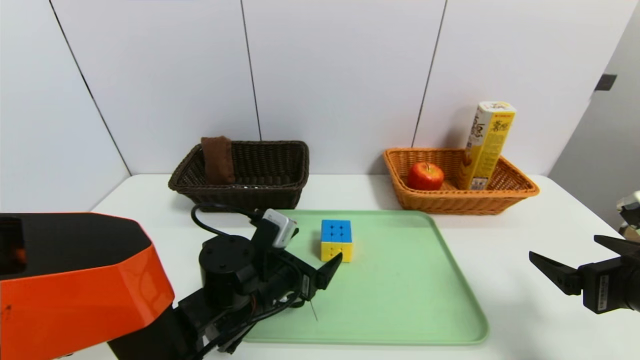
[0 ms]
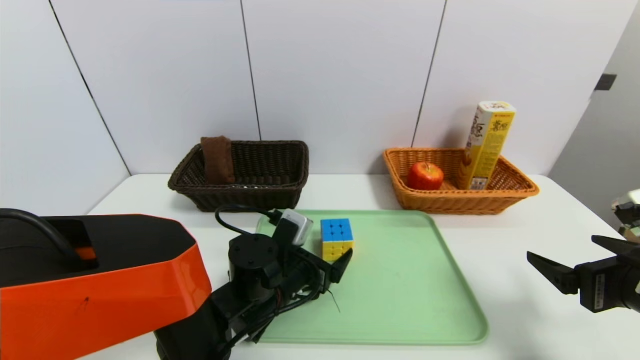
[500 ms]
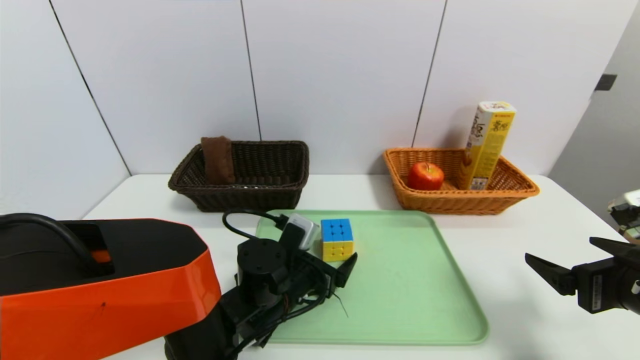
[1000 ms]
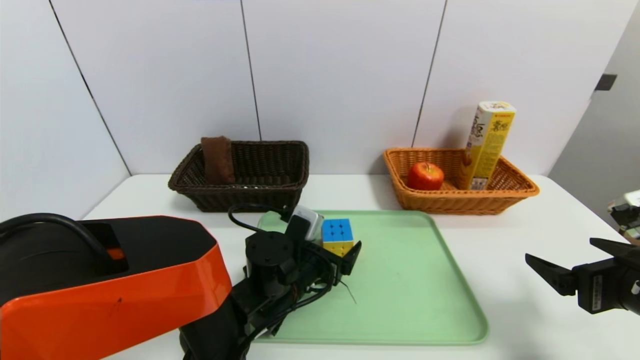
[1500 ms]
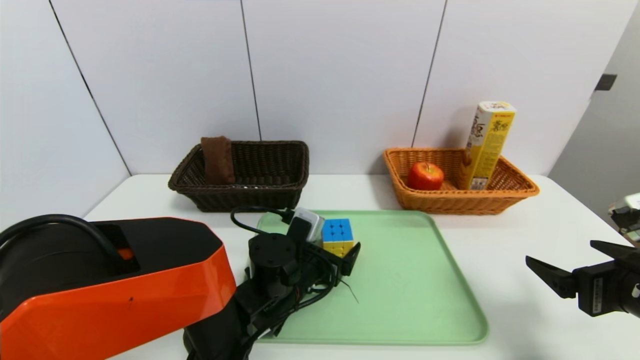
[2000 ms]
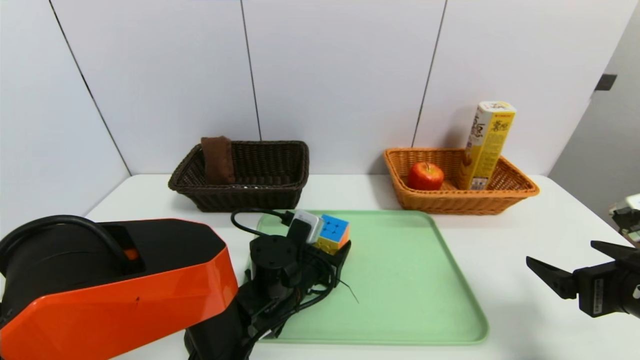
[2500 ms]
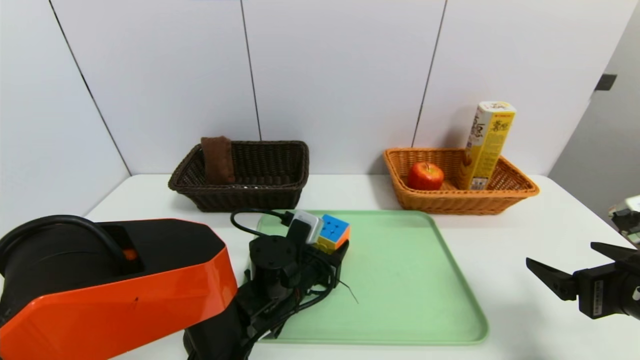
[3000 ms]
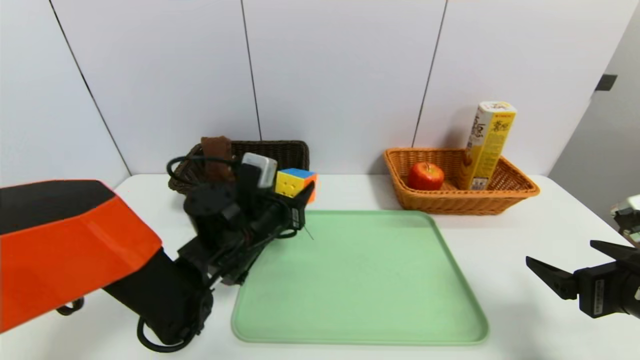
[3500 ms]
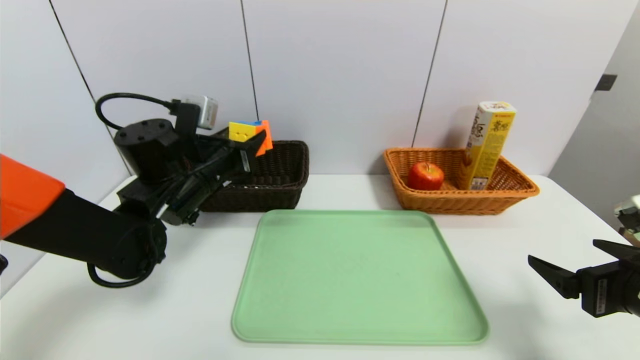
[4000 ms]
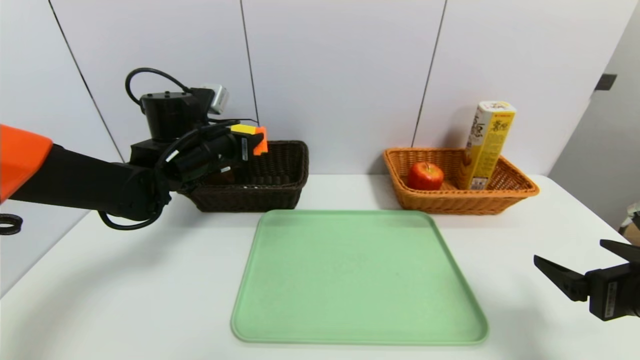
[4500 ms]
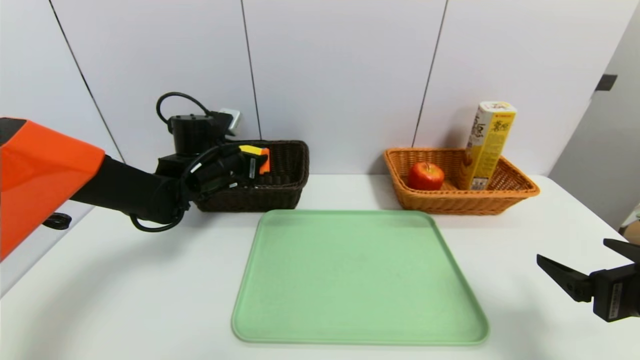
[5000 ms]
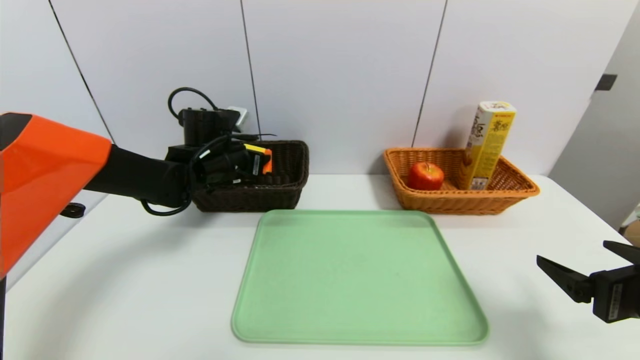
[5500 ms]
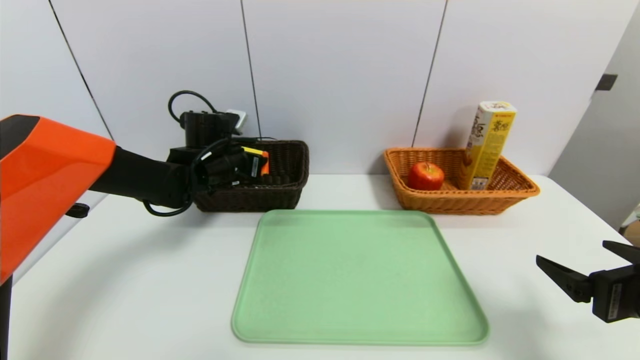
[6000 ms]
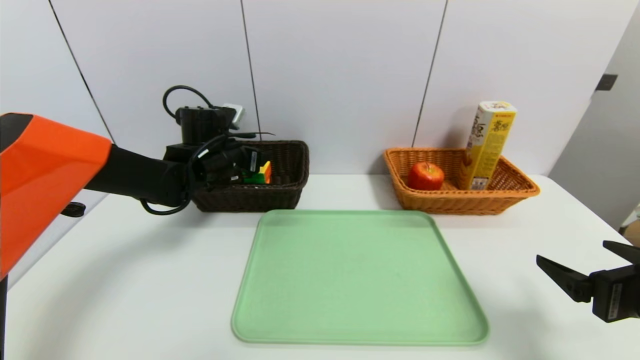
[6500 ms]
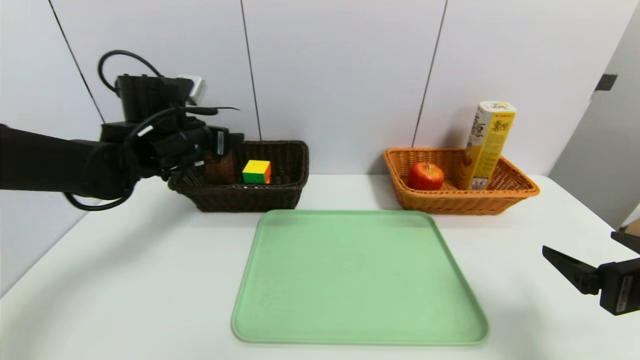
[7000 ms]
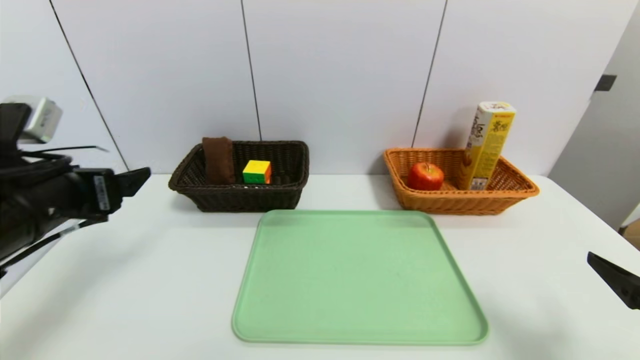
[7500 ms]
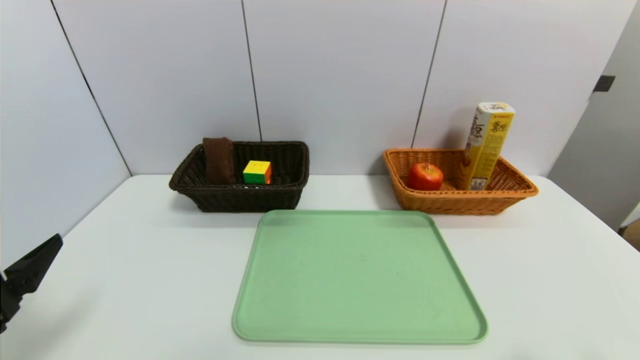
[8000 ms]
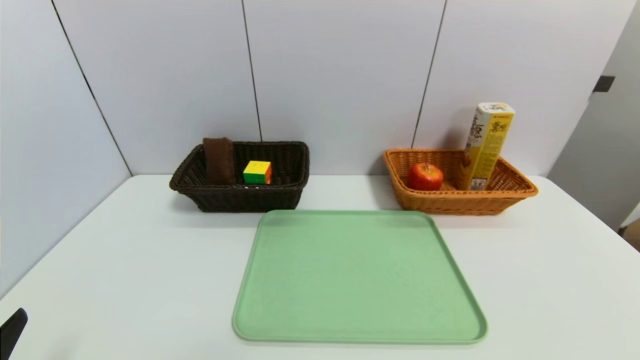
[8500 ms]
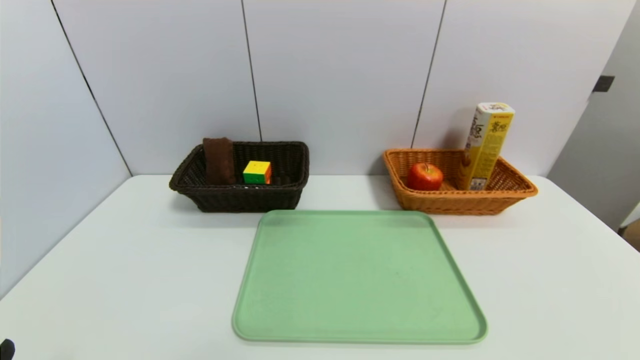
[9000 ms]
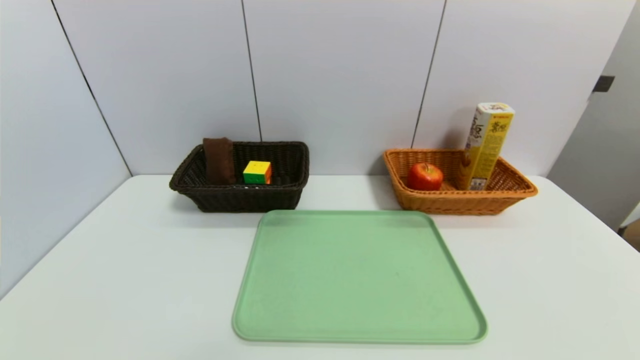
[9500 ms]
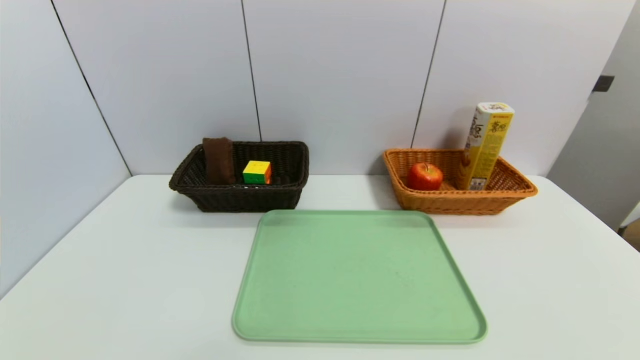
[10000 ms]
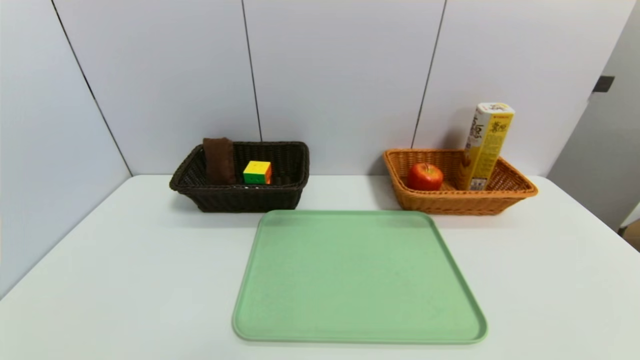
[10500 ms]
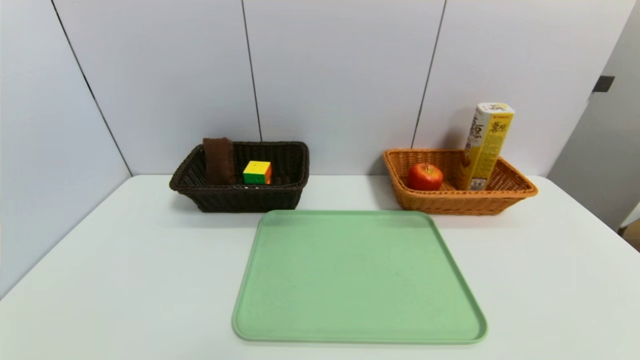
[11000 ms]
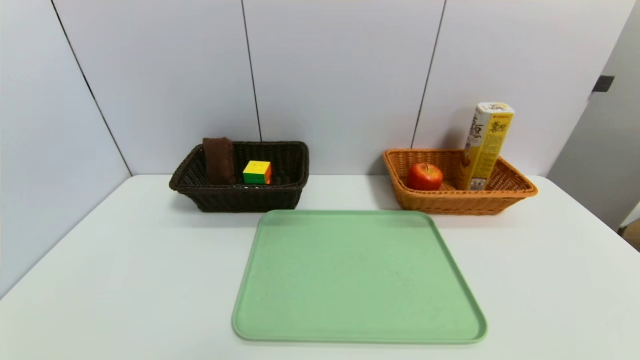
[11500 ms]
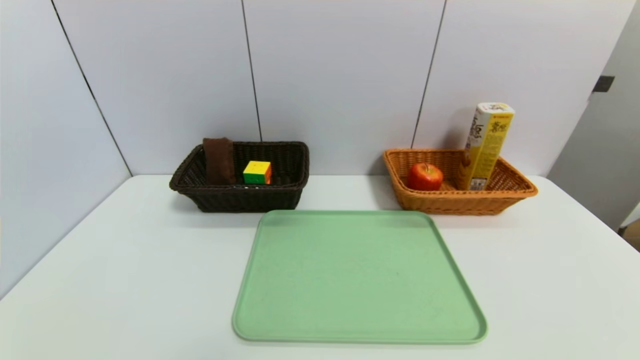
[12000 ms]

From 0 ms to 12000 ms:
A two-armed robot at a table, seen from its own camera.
Task of the whole recording: place the food in the right basket with the right gripper, and place the non food items in the left basket with the left gripper.
Step, from 0 ms to 7000 ms: Grasp the rubiks cube and put it in the left basket.
From 0 ms to 2000 ms: The left gripper moves roughly 5 cm.
From 2000 ms to 4000 ms: The left gripper travels upward, to the left and forward by roughly 20 cm, and closes its fingers.
From 4000 ms to 6000 ms: The left gripper moves forward, roughly 10 cm.
From 6000 ms to 8000 ms: The left gripper heads backward, covering some 35 cm, and opens. The right gripper is displaced backward by approximately 10 cm.
From 8000 ms to 10000 ms: The left gripper goes about 15 cm backward and downward.

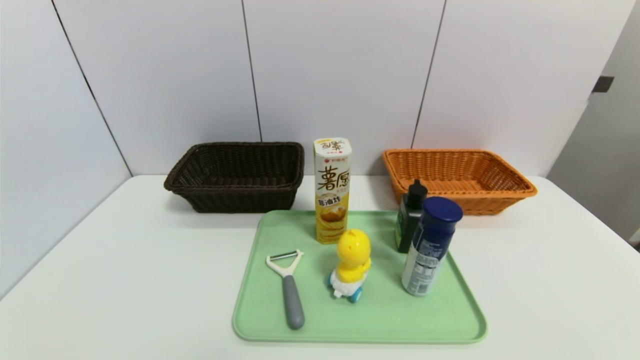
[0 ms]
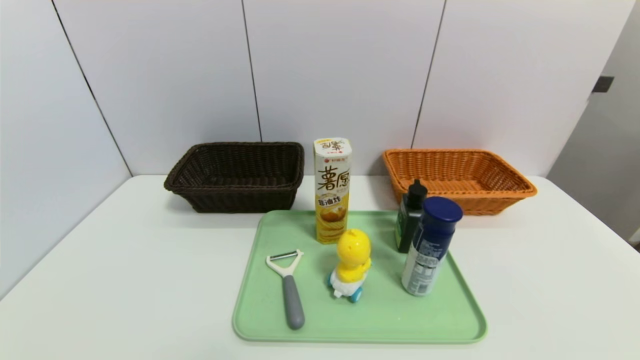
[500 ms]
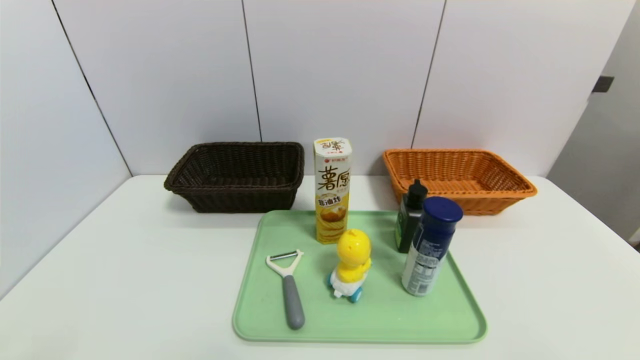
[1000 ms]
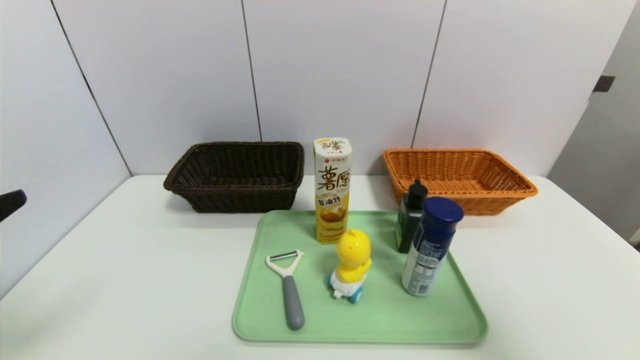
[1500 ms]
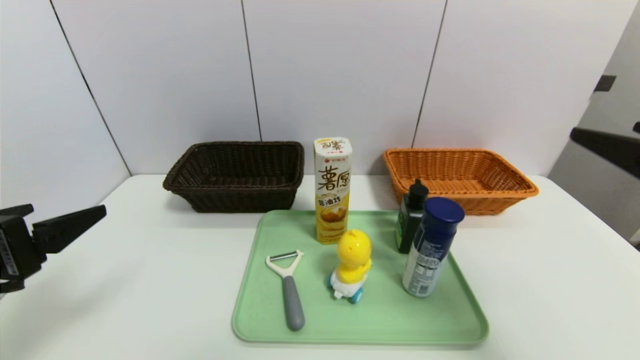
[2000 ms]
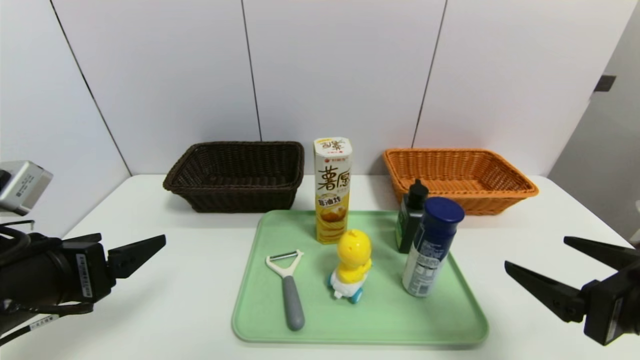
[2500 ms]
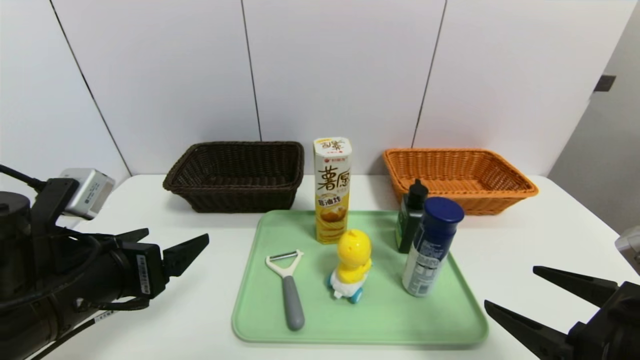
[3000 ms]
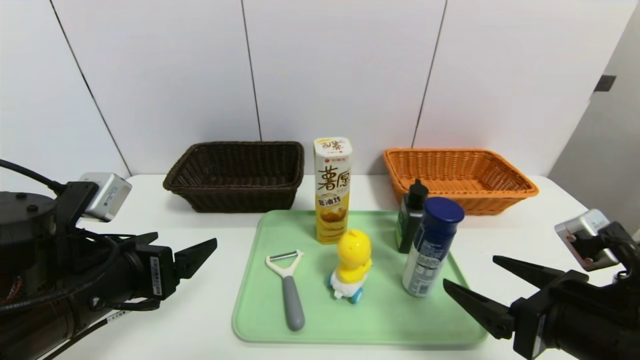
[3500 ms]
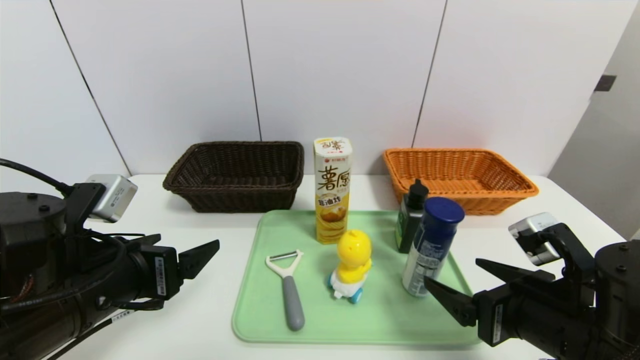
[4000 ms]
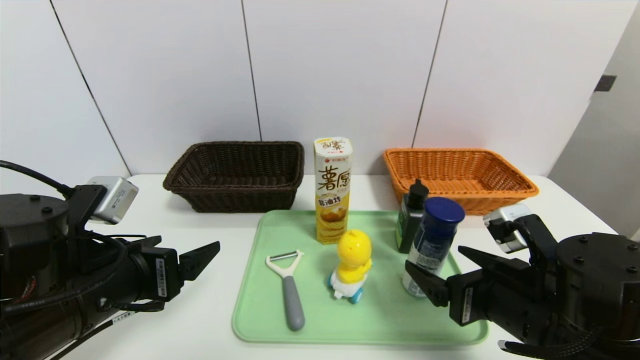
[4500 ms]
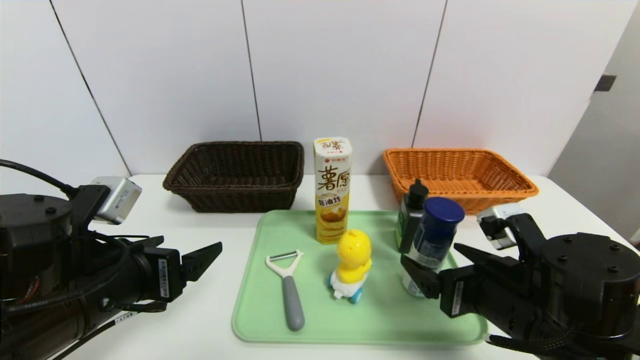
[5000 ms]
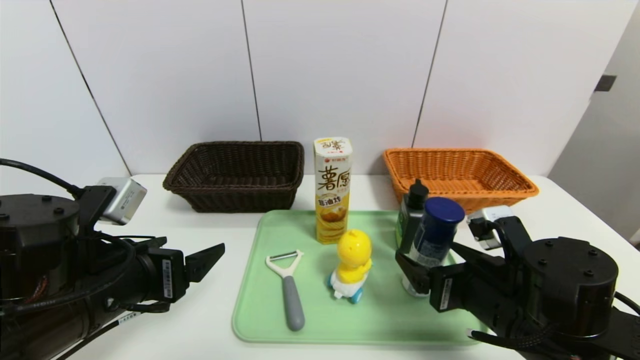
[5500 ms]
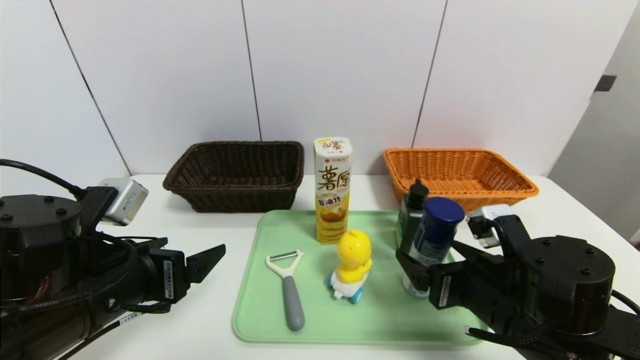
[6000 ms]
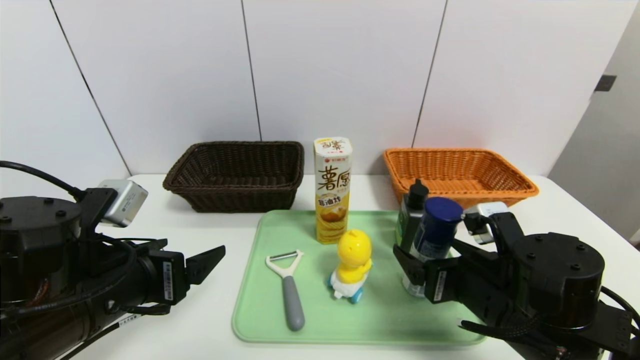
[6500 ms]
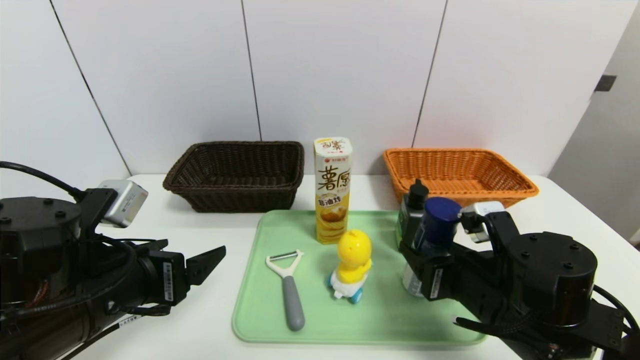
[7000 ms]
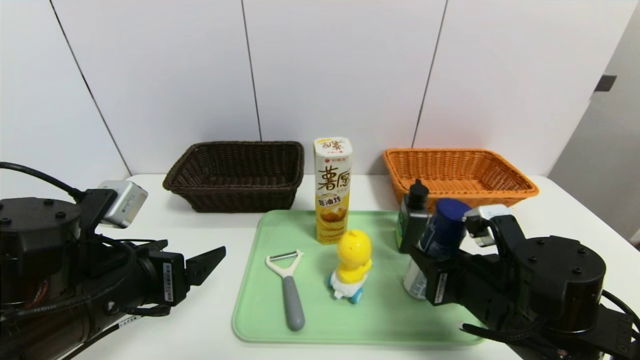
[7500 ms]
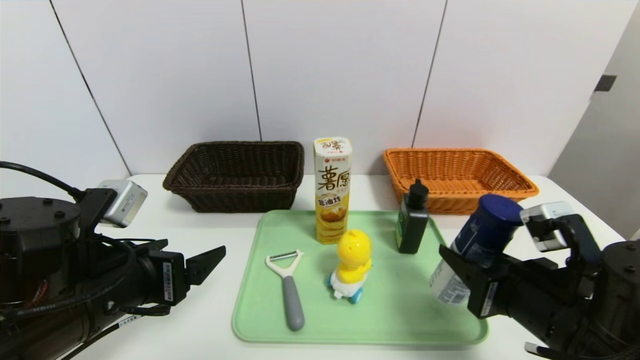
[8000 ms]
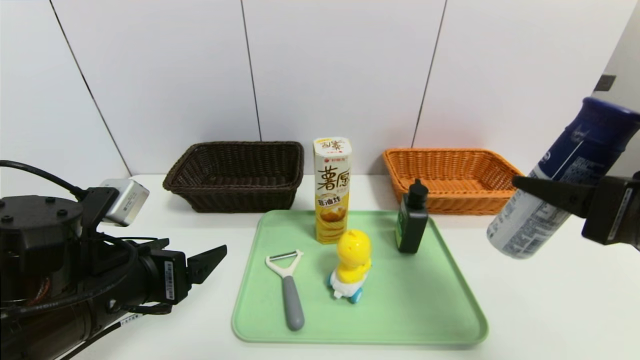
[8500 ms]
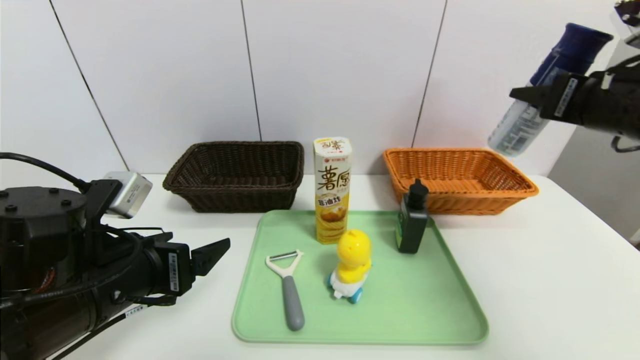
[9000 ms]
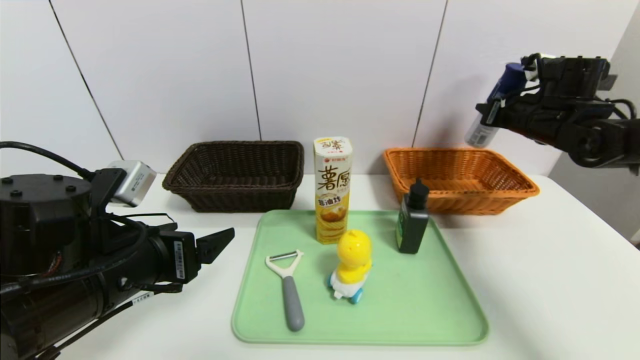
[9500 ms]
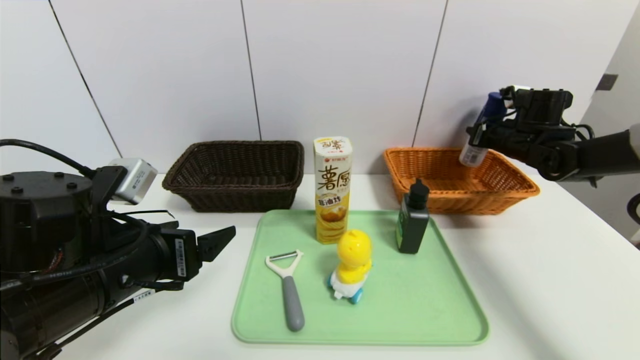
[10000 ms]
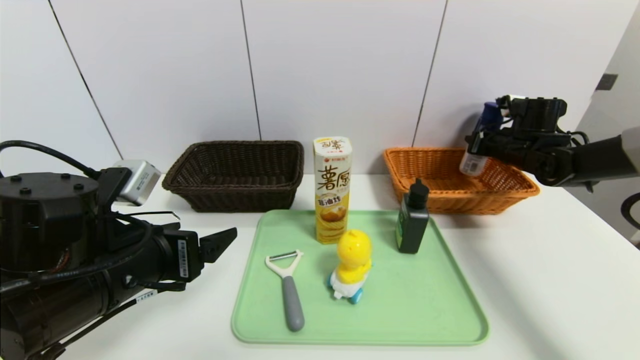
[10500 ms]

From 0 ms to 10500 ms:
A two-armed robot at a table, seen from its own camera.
Task of the whole recording: place the food in the right basket with the right gripper, and place the non food items in the left basket with the left gripper.
From 0 ms to 2000 ms: Both grippers travel together upward and forward, some 25 cm.
From 2000 ms to 4000 ms: The left gripper shifts approximately 10 cm to the right and downward; the right gripper is displaced downward and to the left by roughly 15 cm.
From 4000 ms to 6500 ms: The right gripper ends up about 5 cm from where it was.
From 6500 ms to 8500 ms: The right gripper travels upward and to the right by some 15 cm, and closes.
From 8500 ms to 10500 ms: The right gripper travels forward by about 30 cm.
